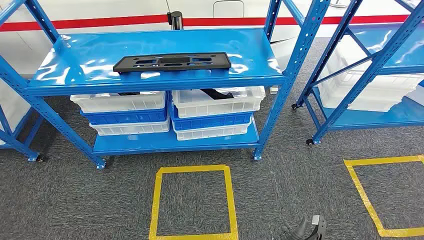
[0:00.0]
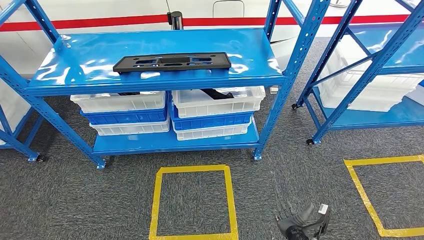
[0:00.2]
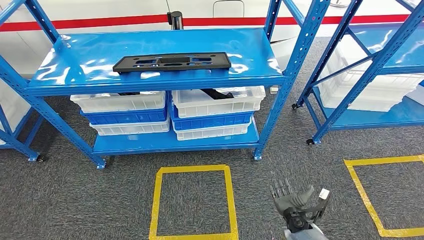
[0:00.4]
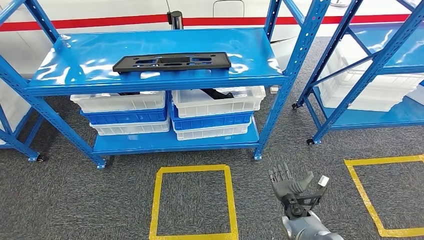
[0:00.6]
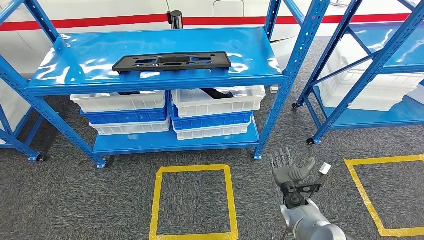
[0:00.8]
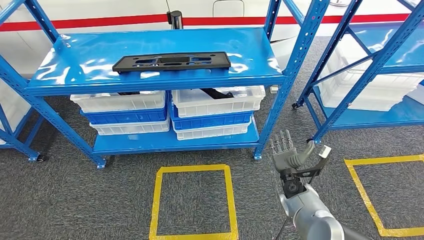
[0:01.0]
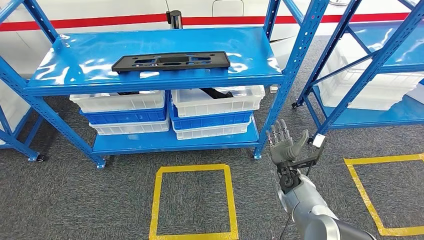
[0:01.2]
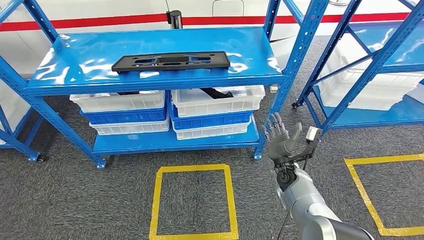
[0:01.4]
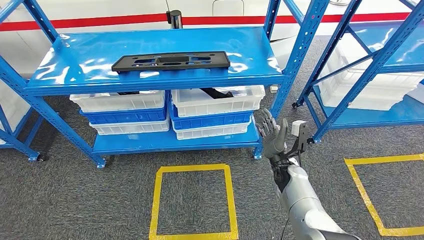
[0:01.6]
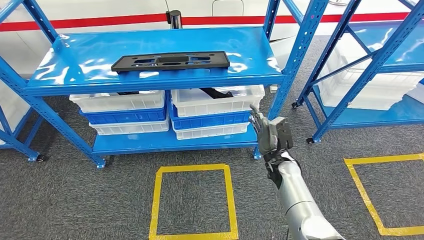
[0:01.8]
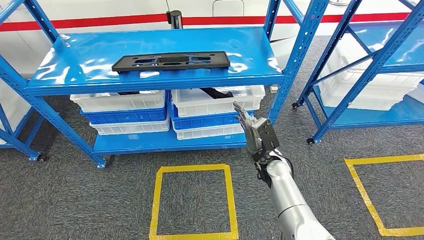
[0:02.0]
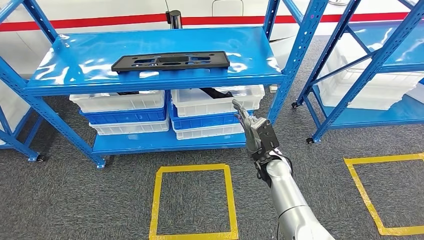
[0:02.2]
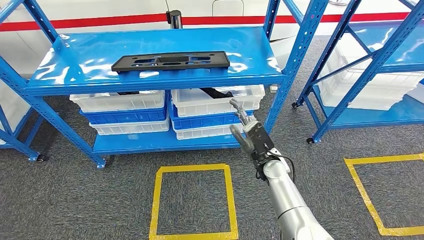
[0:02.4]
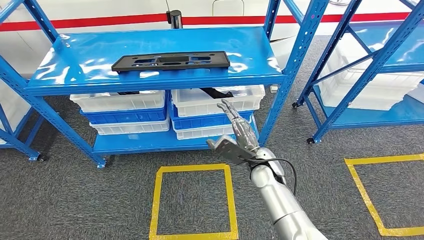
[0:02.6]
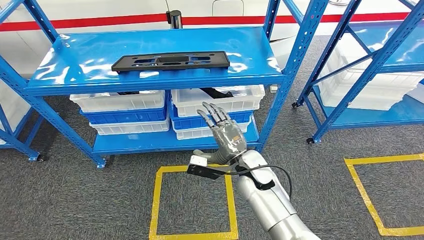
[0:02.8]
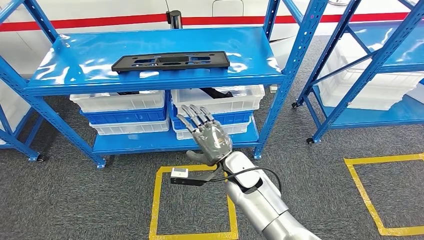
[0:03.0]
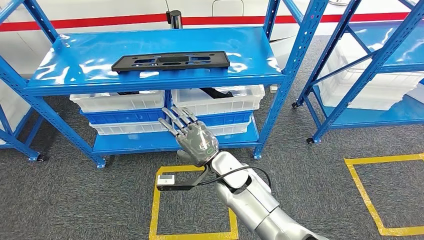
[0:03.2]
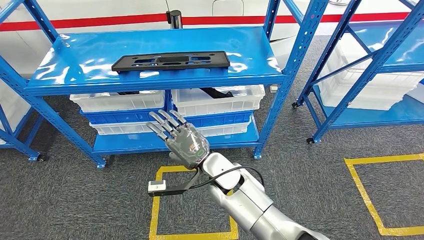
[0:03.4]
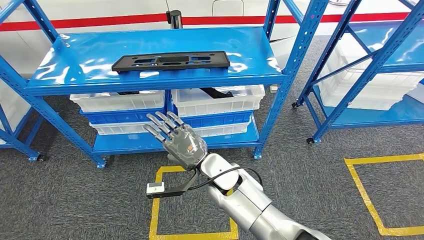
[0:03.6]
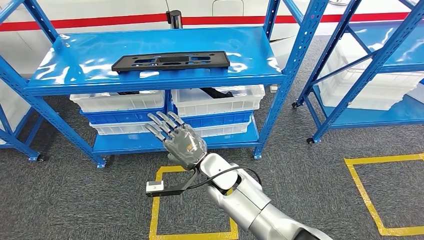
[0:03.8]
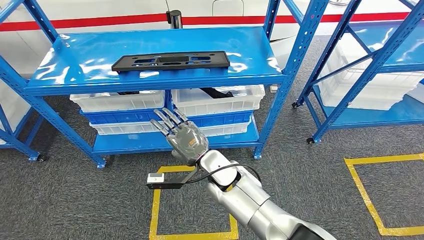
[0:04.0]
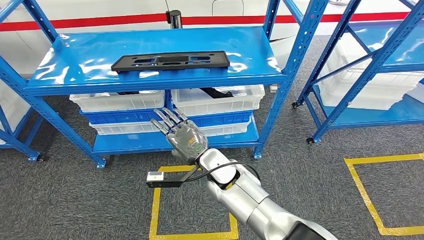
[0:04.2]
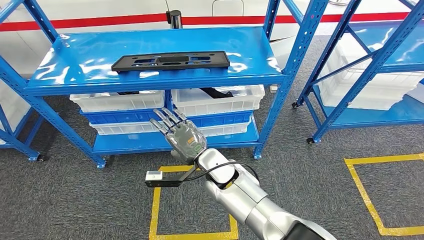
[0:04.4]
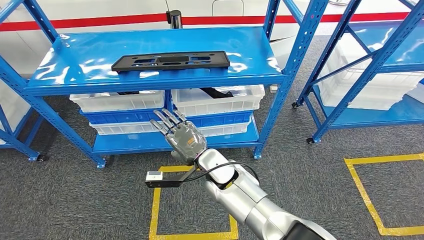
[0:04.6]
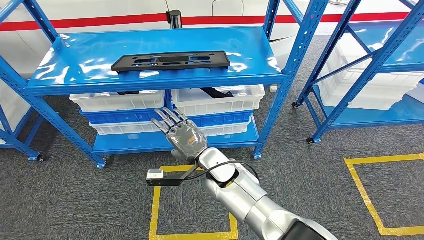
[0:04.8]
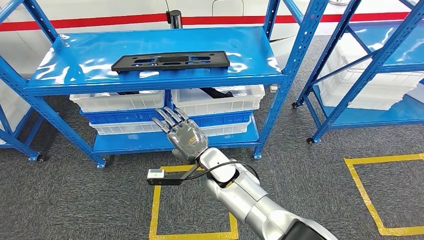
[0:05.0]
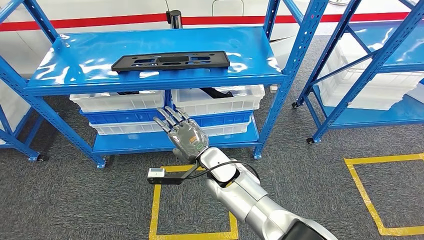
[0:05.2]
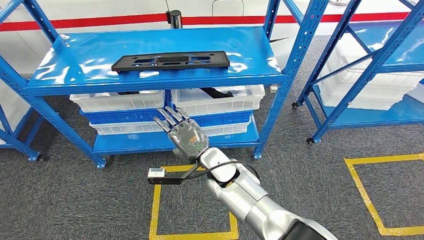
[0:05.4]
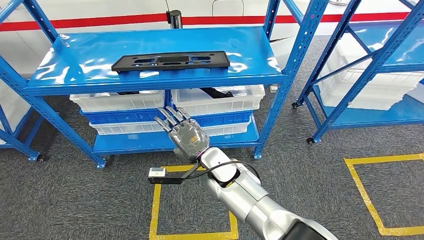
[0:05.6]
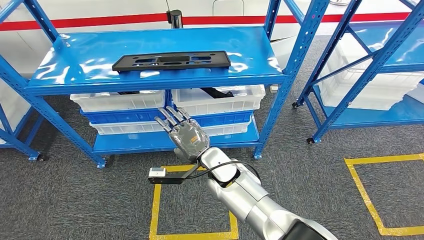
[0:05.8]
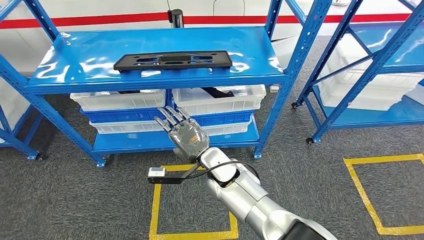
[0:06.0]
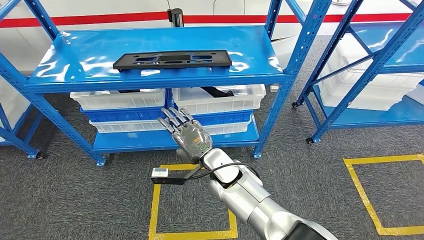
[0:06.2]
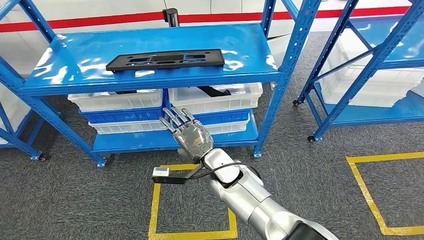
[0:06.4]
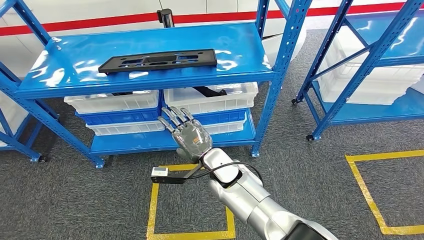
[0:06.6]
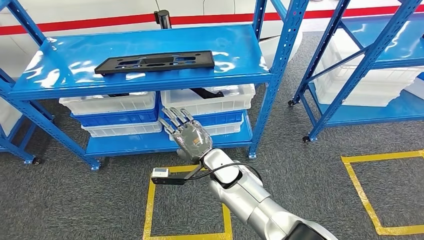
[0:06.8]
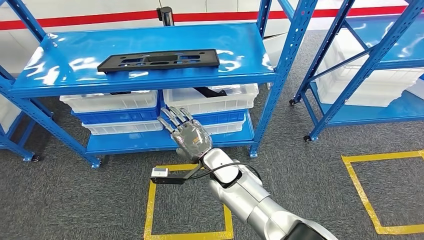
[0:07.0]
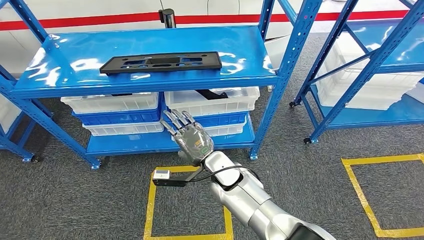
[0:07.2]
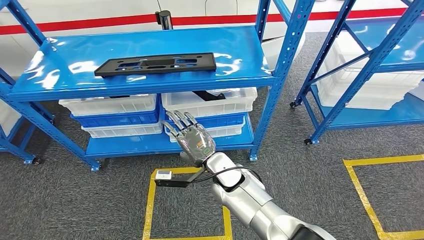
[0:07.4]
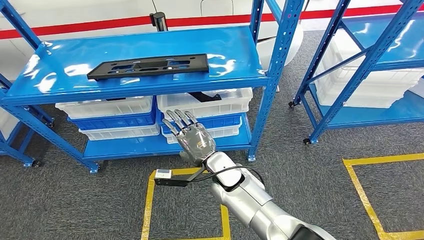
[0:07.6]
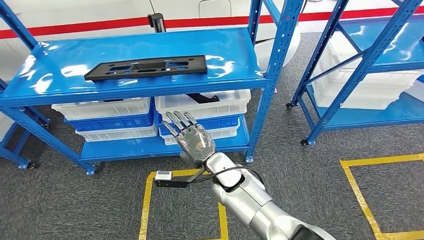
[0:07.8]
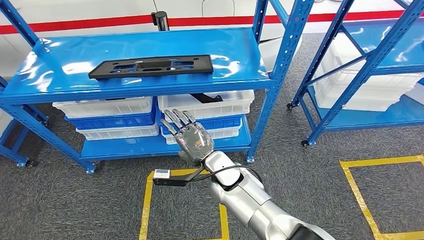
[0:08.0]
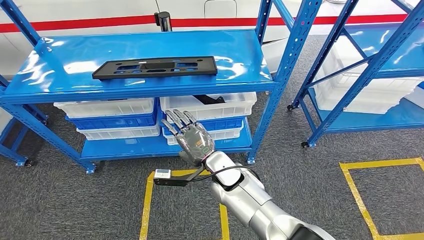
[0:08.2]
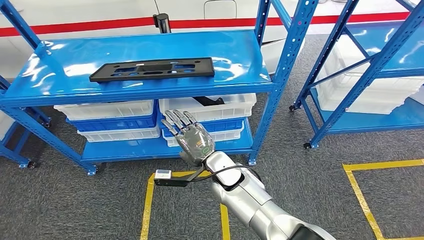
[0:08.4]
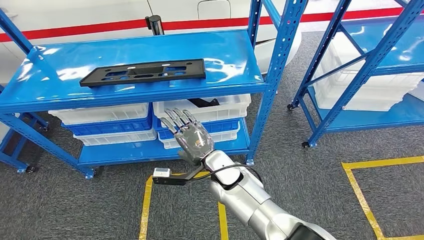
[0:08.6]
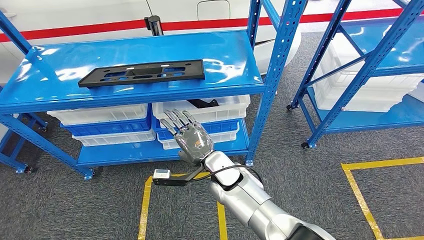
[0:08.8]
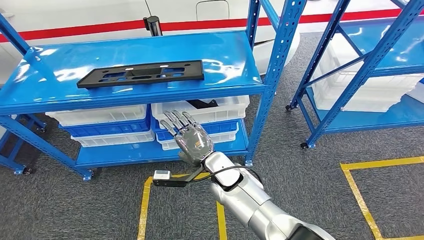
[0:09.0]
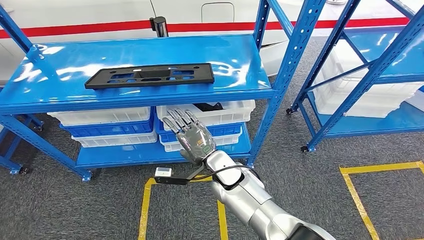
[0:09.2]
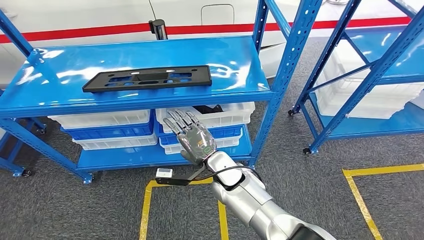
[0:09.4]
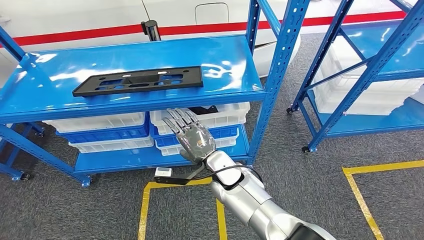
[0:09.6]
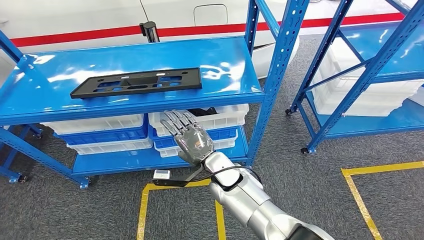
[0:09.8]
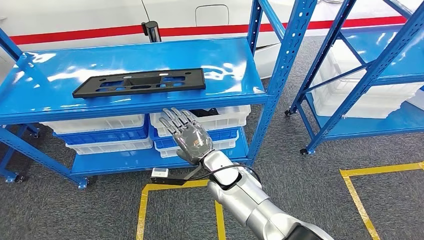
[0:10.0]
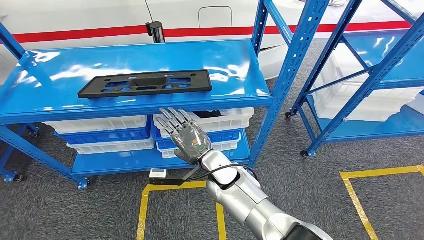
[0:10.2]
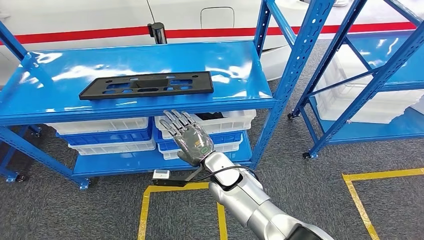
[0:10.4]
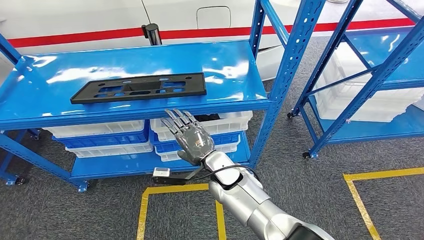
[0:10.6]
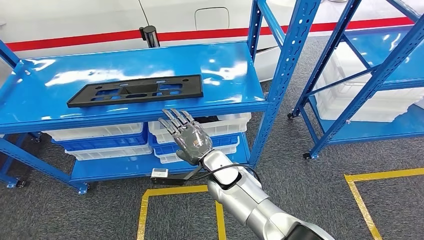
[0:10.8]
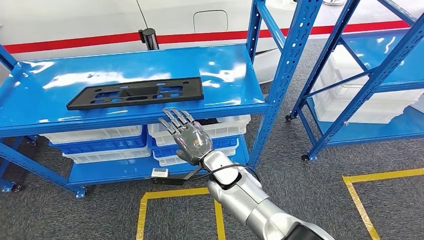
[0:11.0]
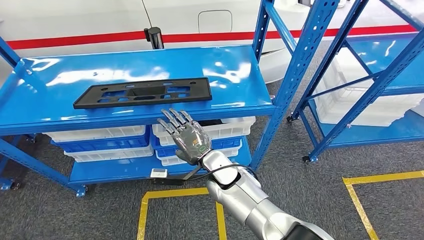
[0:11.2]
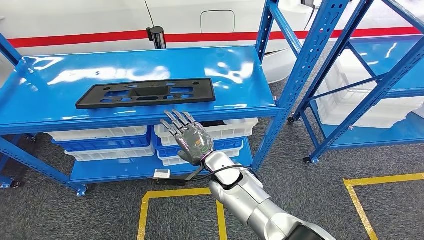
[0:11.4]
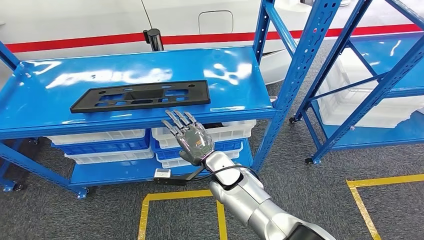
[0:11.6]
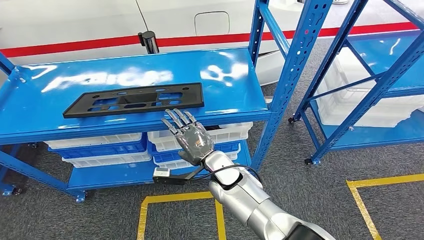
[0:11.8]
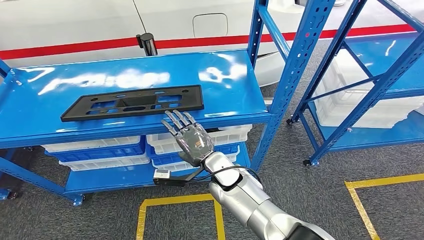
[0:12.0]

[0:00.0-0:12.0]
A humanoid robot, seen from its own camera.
0:01.6 to 0:03.0: The right hand heads to the left and upward, covering roughly 20 cm.
0:03.0 to 0:04.4: The right hand travels to the left by some 5 cm.
0:04.4 to 0:06.0: The two hands keep their place.

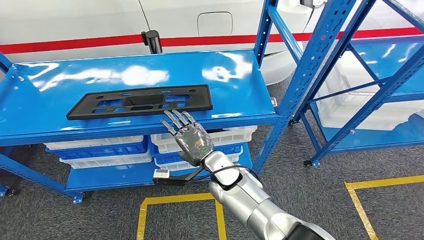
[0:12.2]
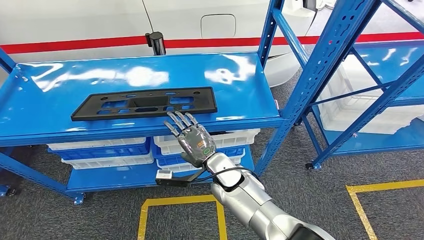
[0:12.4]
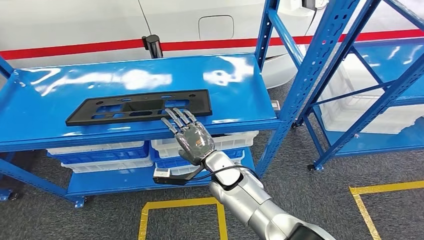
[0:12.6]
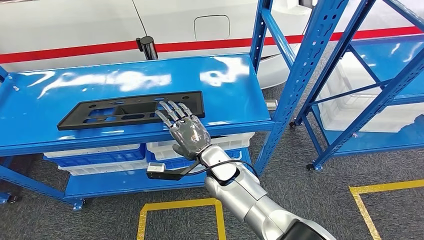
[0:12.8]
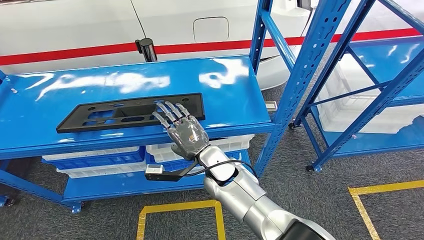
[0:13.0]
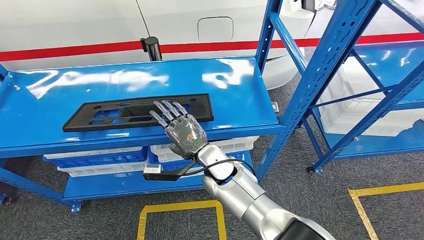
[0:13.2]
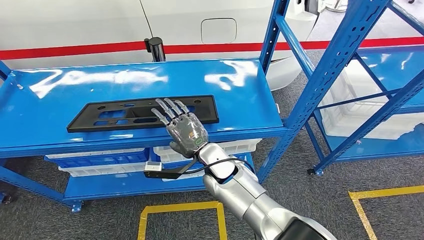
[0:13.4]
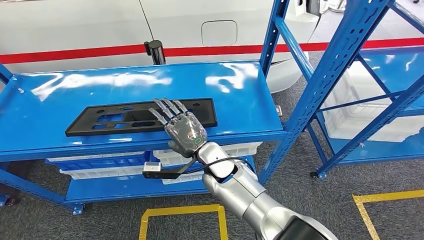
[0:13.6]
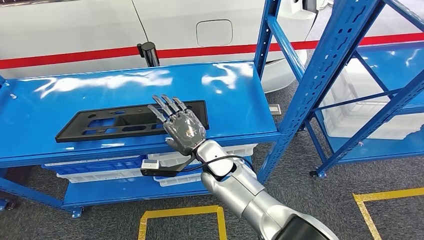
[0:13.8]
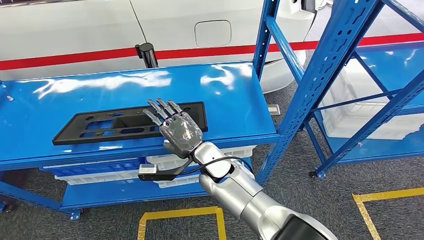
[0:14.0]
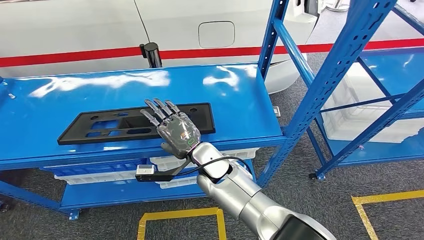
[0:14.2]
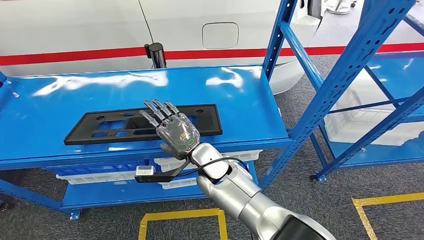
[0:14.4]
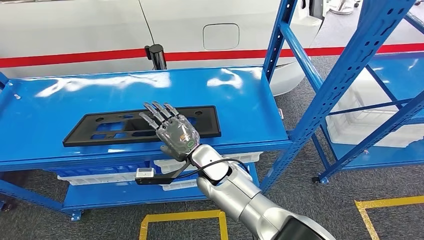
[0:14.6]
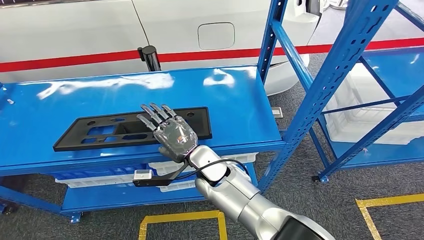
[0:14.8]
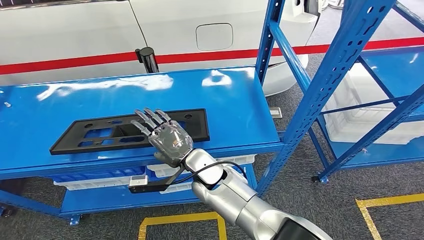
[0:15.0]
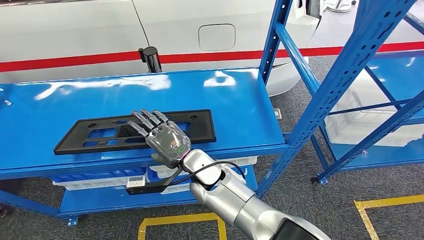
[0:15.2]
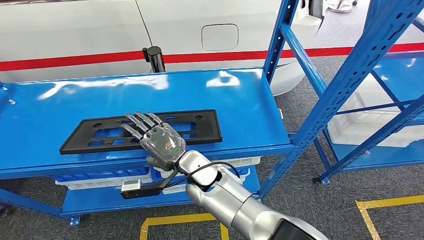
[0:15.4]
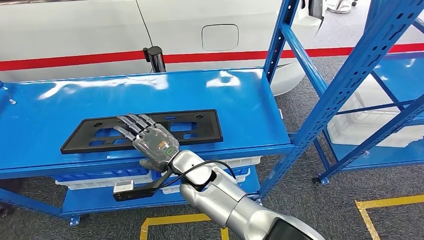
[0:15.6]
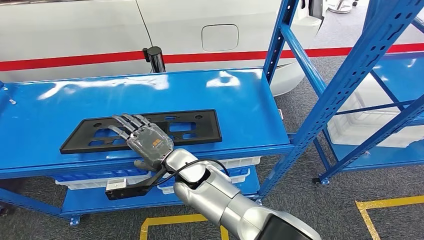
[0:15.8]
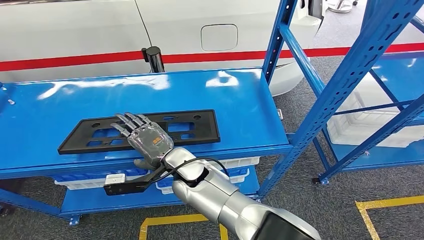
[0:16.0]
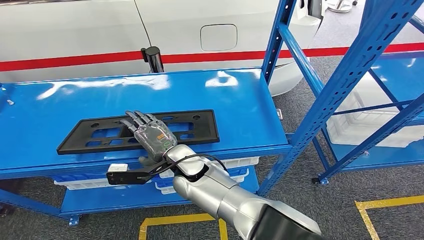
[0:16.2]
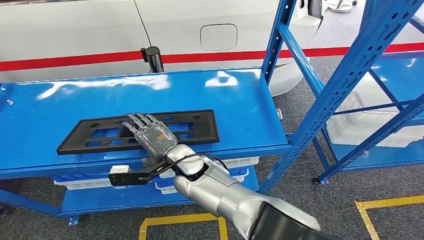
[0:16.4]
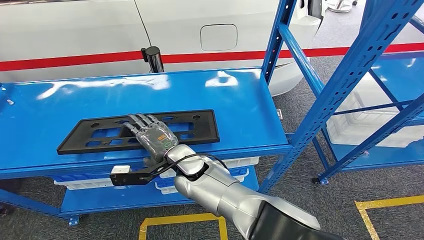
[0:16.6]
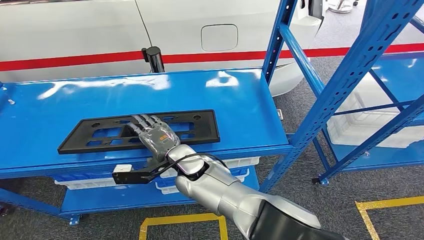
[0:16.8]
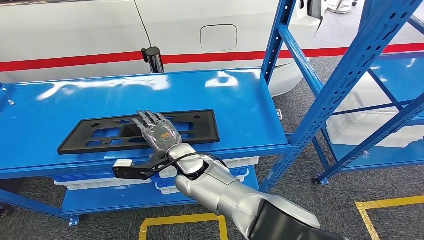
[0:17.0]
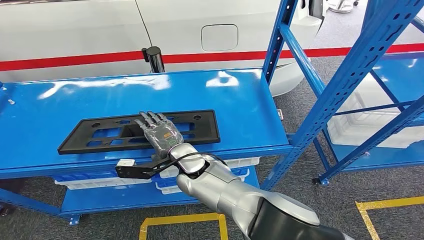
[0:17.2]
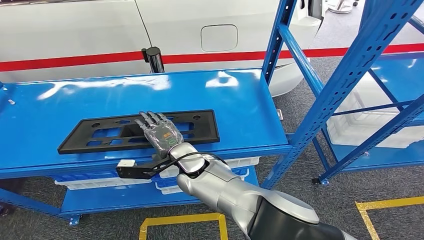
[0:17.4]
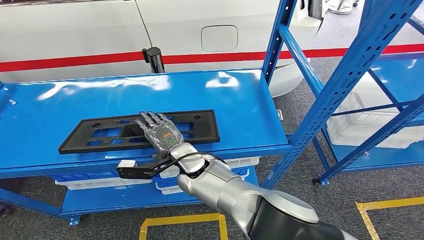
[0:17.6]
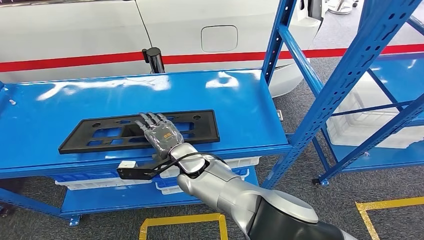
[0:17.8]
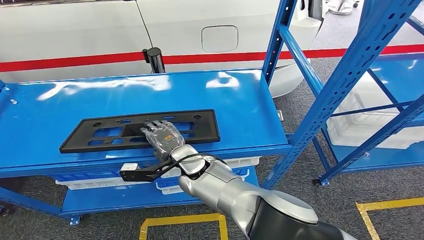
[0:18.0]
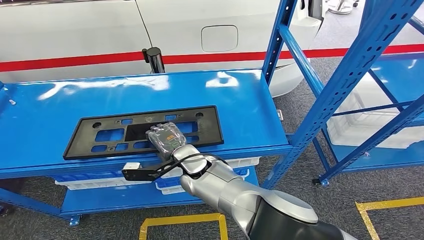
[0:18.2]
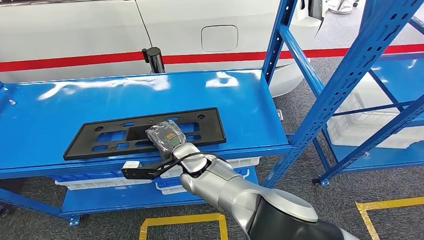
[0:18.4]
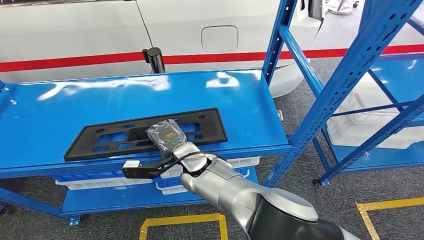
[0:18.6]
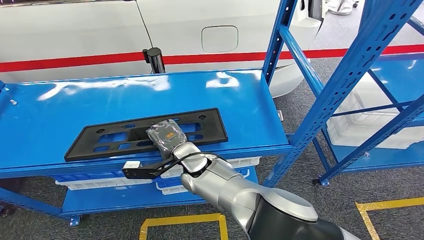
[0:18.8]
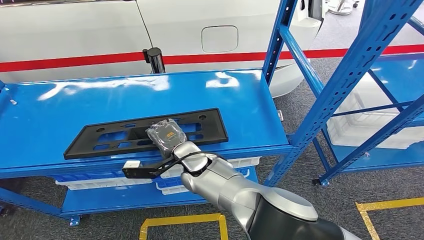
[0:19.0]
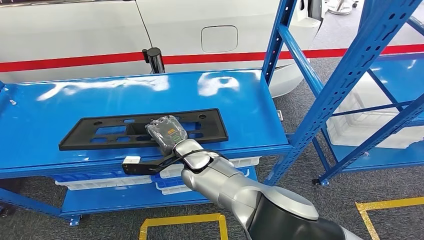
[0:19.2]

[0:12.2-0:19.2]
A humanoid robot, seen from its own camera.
0:16.4 to 0:17.8: The left hand goes some 5 cm forward.
0:17.8 to 0:19.2: The hands stay close to where they were, moving slightly.
